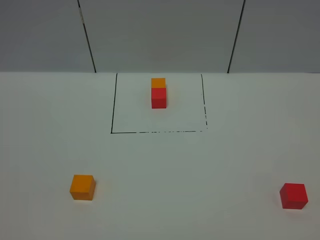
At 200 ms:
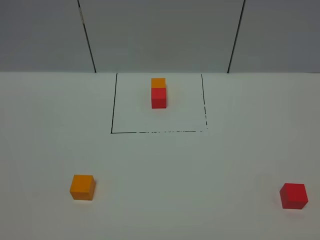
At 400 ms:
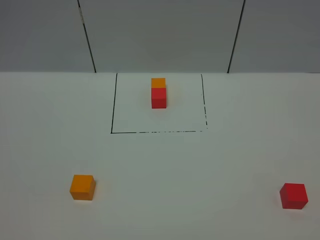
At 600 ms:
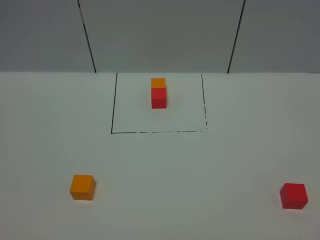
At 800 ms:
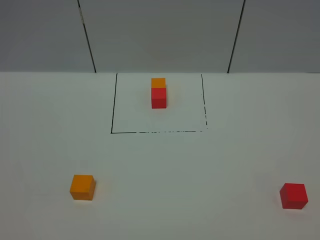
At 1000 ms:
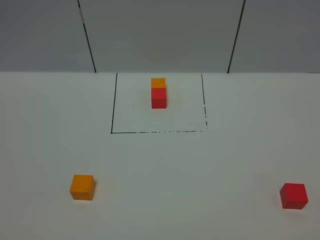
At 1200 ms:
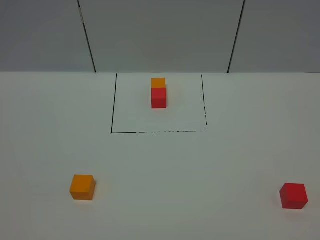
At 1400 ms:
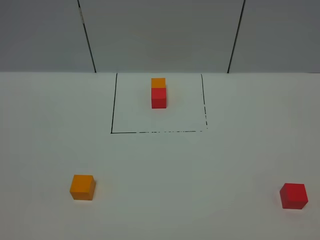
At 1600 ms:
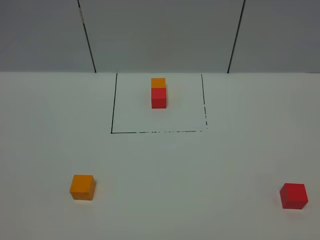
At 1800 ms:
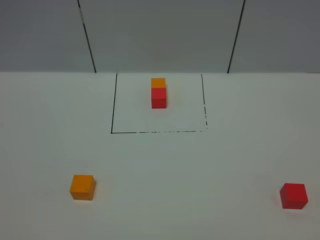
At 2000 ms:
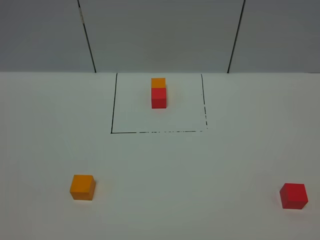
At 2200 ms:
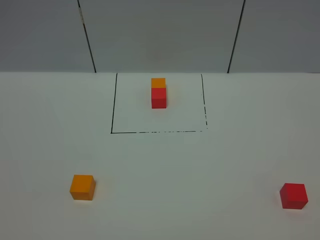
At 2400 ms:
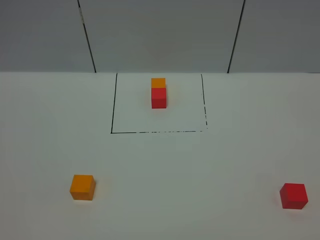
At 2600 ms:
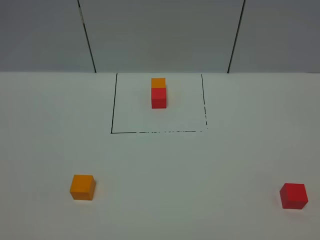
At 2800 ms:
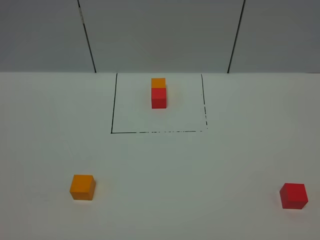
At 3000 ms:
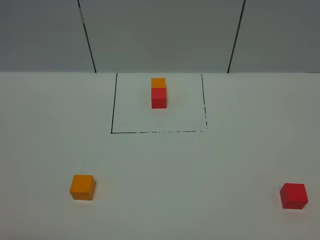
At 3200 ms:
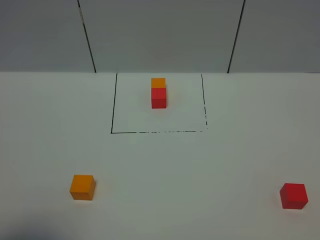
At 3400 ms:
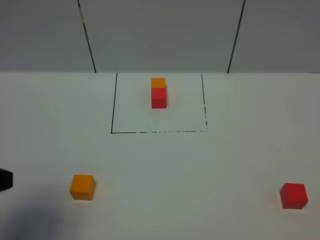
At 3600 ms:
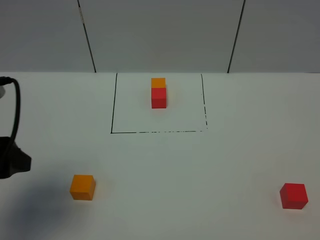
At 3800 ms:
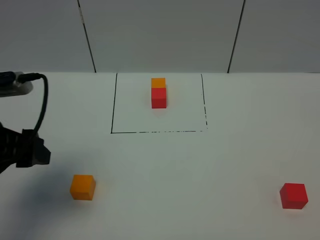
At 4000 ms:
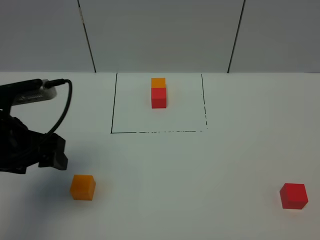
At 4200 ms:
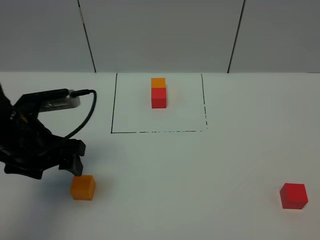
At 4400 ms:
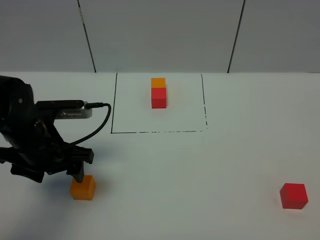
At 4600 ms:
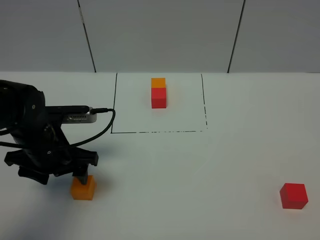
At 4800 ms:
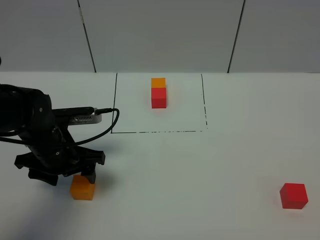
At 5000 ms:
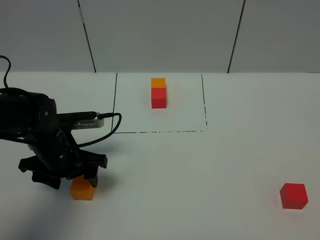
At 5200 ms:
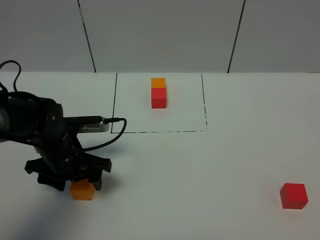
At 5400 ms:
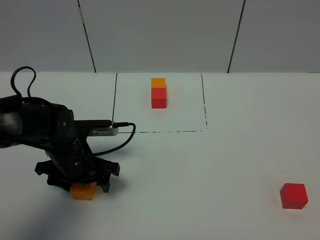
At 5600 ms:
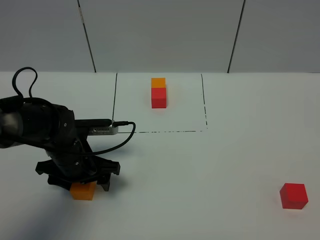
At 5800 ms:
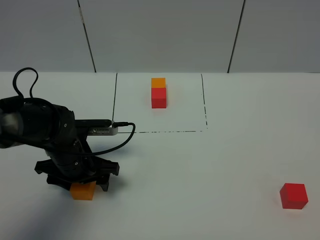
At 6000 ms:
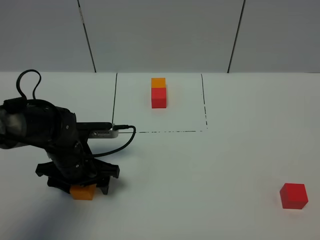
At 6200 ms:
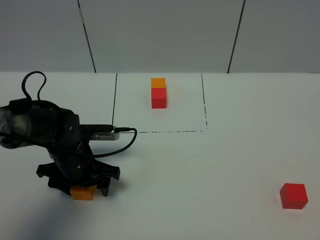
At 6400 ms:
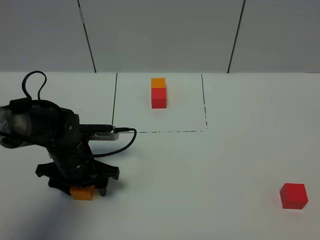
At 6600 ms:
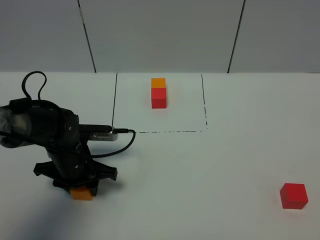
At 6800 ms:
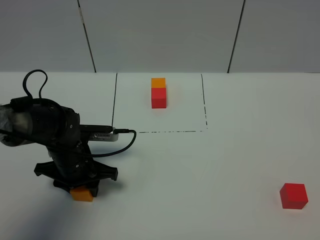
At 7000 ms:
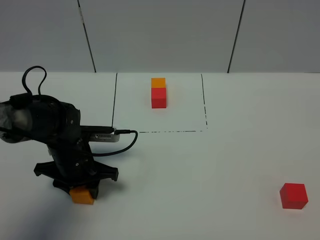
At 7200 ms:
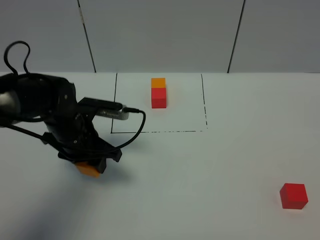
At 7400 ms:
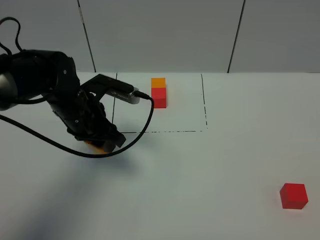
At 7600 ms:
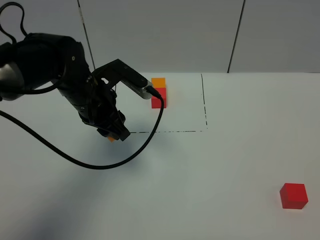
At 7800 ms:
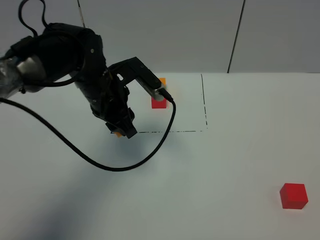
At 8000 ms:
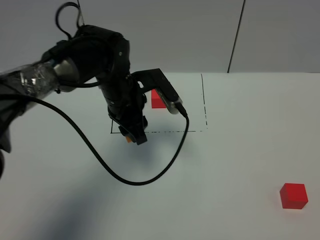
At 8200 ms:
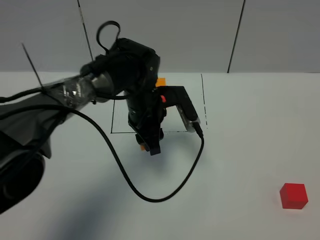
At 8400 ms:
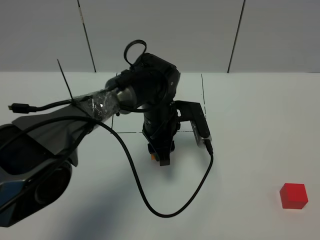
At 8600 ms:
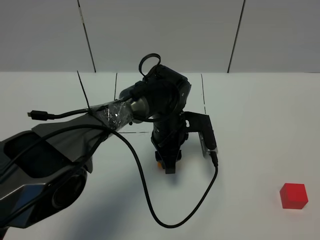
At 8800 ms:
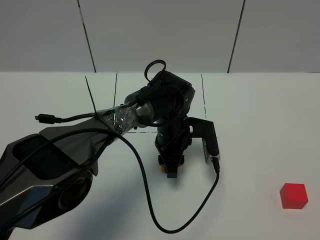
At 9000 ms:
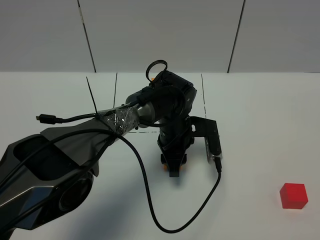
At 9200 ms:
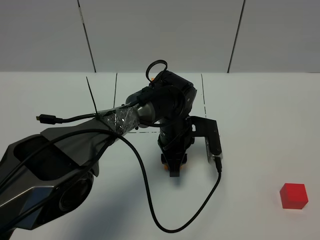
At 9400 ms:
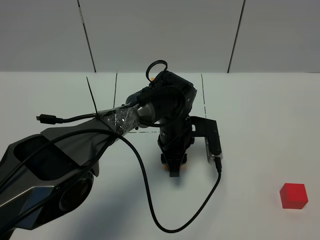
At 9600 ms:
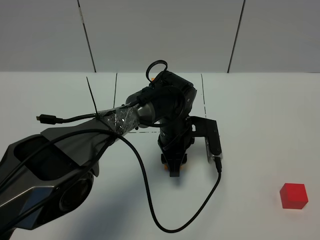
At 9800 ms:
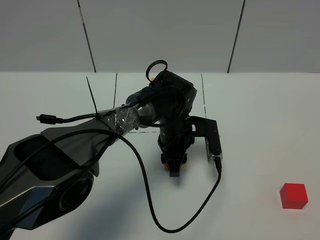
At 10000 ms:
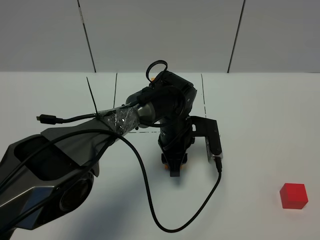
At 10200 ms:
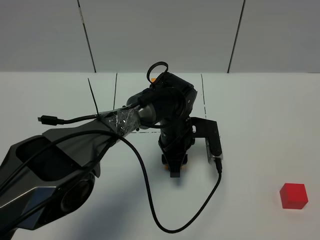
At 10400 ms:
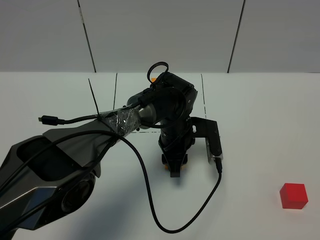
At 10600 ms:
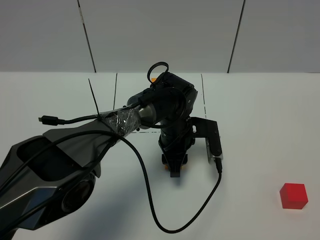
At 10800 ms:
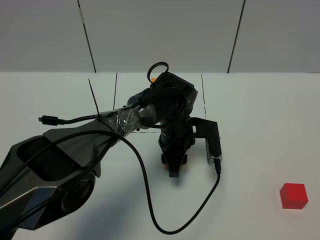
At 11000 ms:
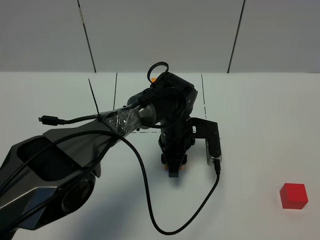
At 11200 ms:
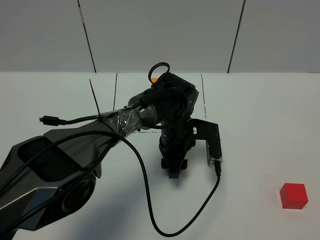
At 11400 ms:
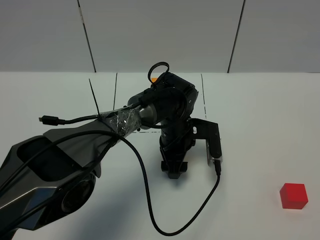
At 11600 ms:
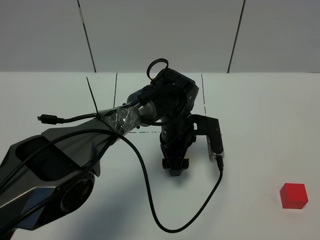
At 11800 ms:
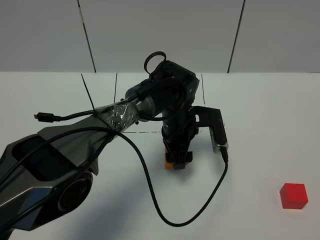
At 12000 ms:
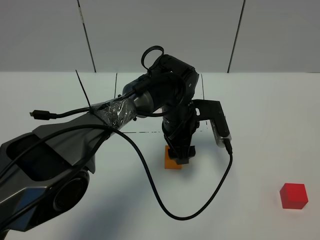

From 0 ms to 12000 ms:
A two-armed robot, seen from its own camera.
Task of the whole recording: According to the building block template in front, assemble the scattered blocks together.
From 0 ms to 1600 ms: Both grippers stay put.
From 3000 ms to 4400 ms: The left gripper is displaced forward and downward by approximately 30 cm.
From 4400 ms to 6000 ms: The left gripper heads downward, covering approximately 10 cm.
From 6000 ms to 7600 ms: The left gripper heads upward and forward, covering about 15 cm, and closes its fingers.
From 7600 ms to 9000 ms: The left gripper travels to the right and downward by some 20 cm.
From 9000 ms to 10400 ms: Both grippers stay about where they are.
From 10400 ms to 12000 ms: The left gripper travels upward by some 5 cm, and opens.

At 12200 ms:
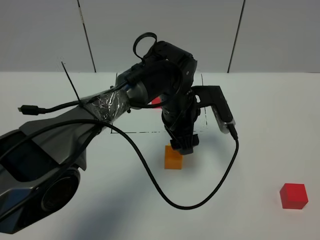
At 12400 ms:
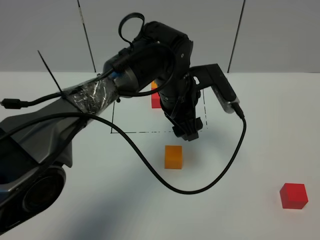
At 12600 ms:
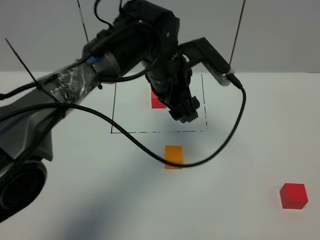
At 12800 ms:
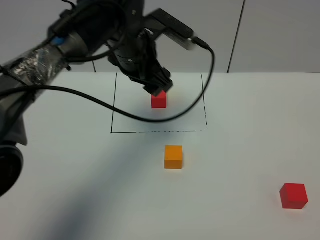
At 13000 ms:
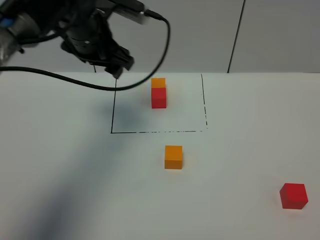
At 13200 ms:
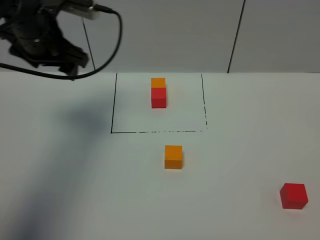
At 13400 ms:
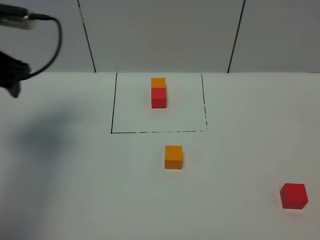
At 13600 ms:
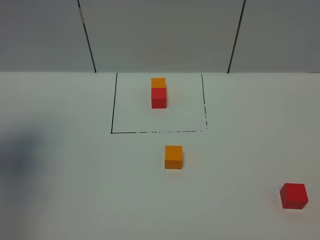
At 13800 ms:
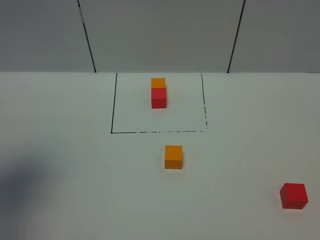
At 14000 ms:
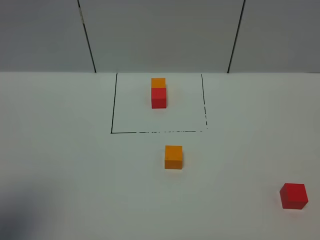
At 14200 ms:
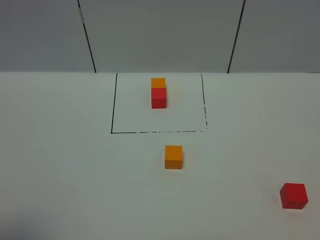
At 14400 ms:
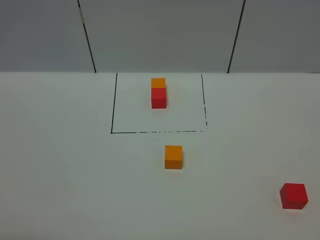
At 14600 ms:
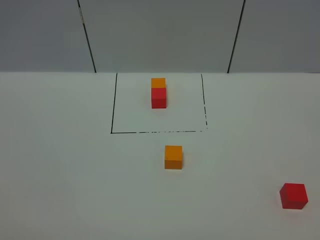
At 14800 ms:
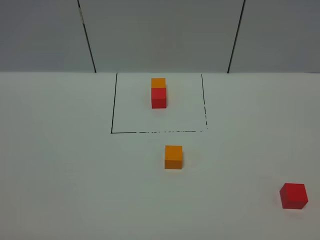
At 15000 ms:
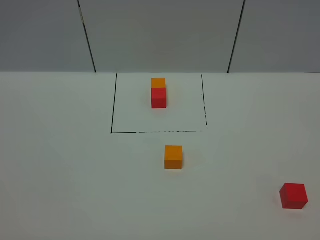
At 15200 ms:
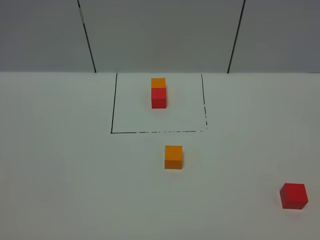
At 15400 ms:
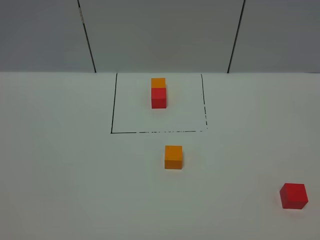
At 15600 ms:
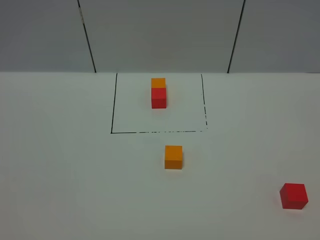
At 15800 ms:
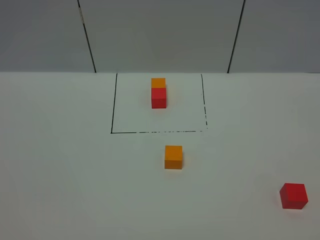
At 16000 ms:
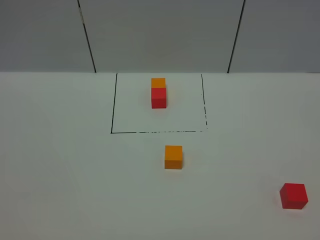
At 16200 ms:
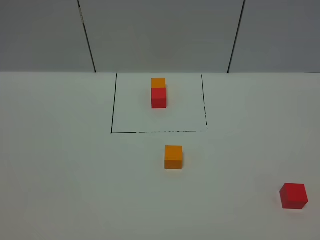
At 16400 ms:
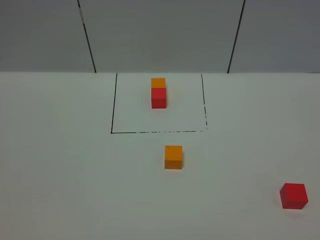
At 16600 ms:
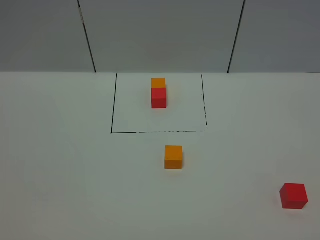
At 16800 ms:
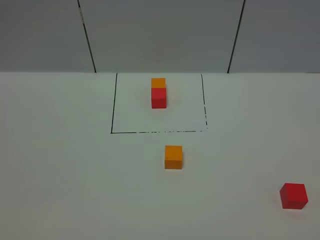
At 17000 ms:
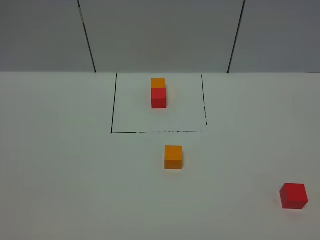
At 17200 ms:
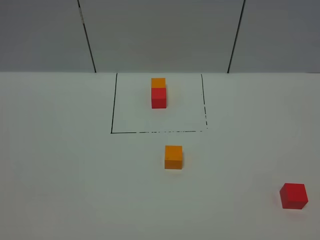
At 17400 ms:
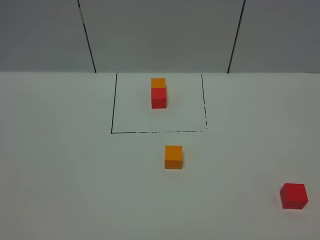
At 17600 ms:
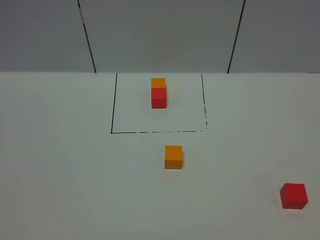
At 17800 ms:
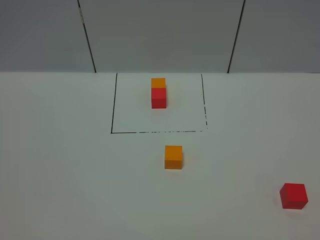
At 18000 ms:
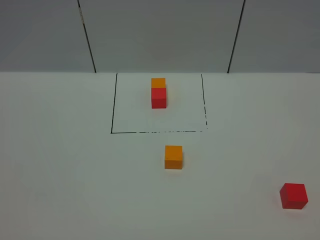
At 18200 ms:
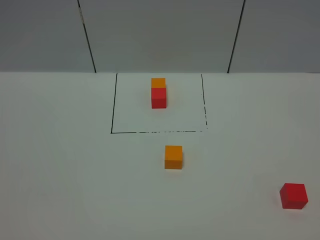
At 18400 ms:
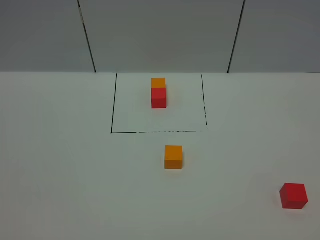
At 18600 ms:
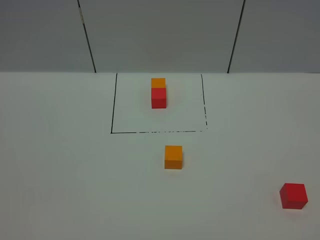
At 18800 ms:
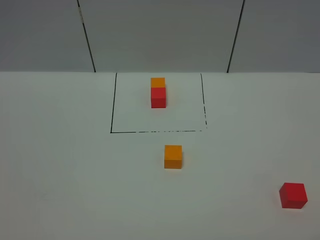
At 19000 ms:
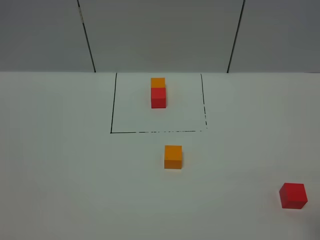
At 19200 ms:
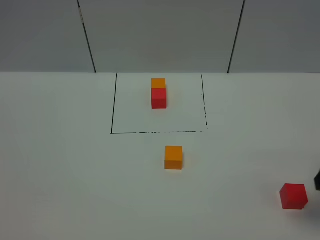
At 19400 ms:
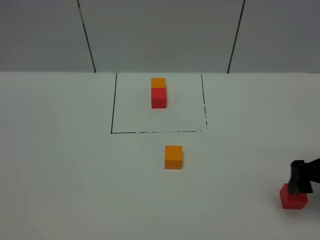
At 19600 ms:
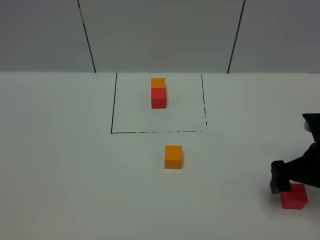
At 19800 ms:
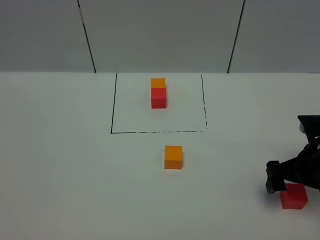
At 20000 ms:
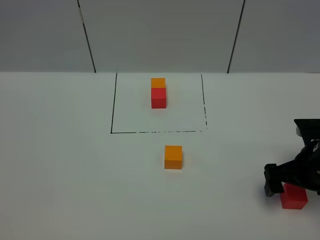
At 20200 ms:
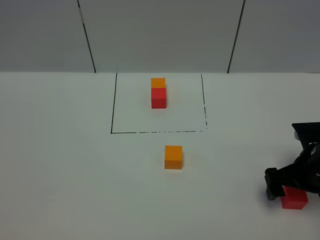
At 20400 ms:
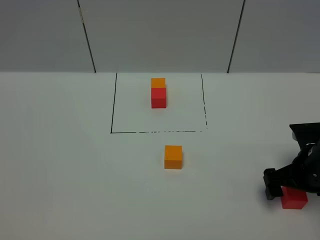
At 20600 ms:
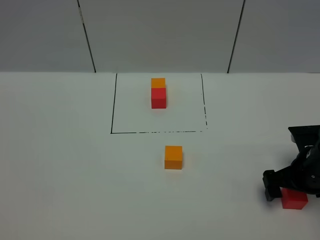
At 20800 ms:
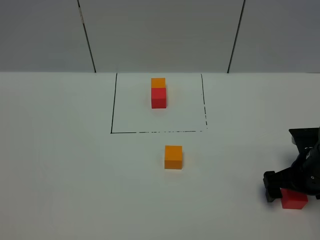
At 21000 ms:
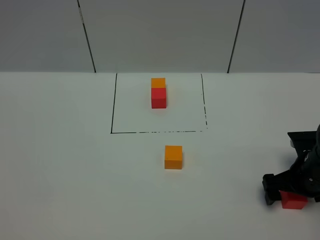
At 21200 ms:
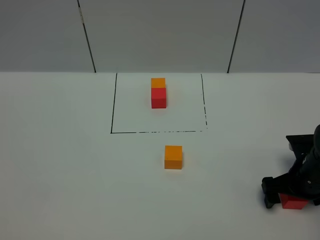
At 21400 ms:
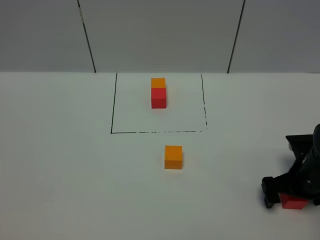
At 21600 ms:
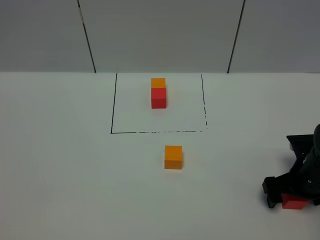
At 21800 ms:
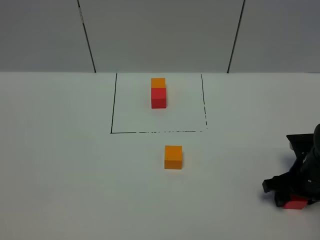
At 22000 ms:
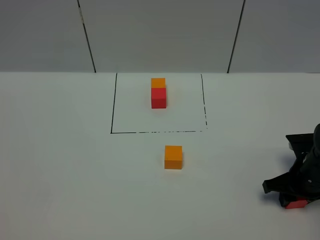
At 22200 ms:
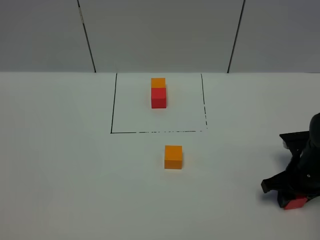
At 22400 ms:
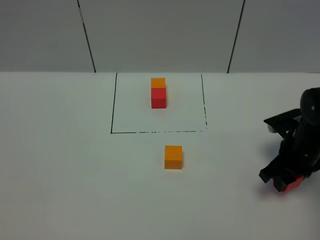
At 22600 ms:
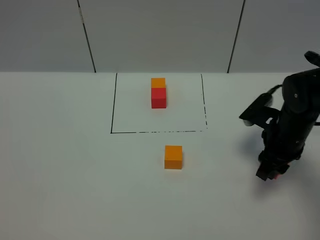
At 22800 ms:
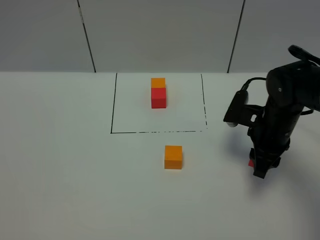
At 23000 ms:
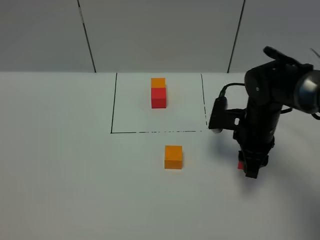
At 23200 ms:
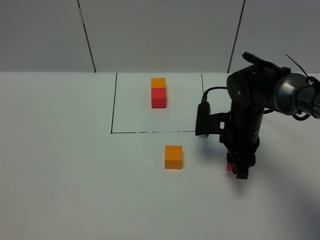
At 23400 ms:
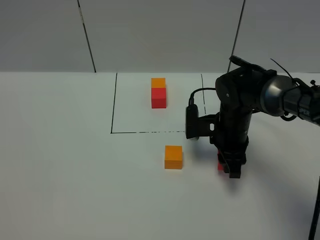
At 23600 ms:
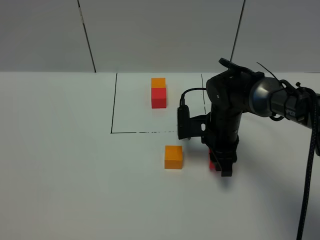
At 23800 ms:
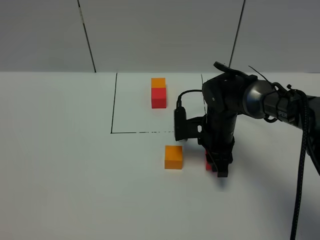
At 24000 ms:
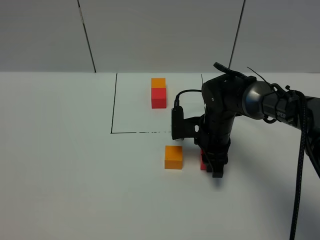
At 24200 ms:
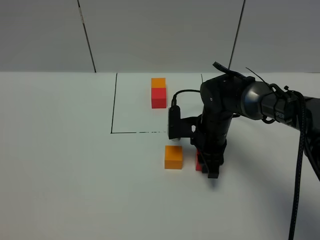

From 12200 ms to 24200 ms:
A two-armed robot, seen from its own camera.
Task of the whole recording: According to the building block template in front, assemble the scattered blocks together.
From 12200 ms to 13800 ms: The left gripper travels to the left, upward and backward by some 50 cm.
From 13800 ms to 15200 ms: The left gripper heads backward and downward, covering roughly 20 cm.
From 16600 ms to 18200 ms: Both grippers stay put.
From 18200 ms to 19800 ms: The right gripper heads forward, covering about 25 cm.
From 19800 ms to 21200 ms: The right gripper moves downward, approximately 5 cm.
From 21200 ms to 22600 ms: The right gripper travels upward and to the left by about 10 cm, and closes.
From 22600 ms to 24200 ms: The right gripper heads to the left and downward, covering about 15 cm.
